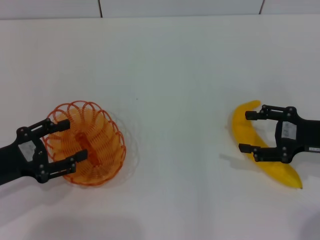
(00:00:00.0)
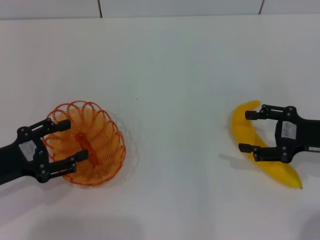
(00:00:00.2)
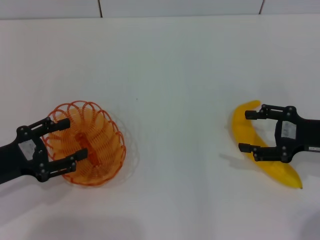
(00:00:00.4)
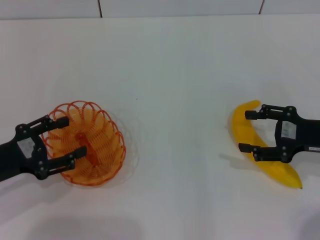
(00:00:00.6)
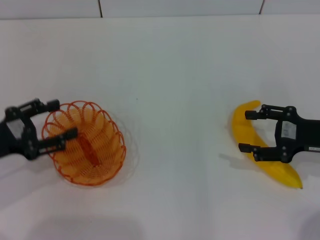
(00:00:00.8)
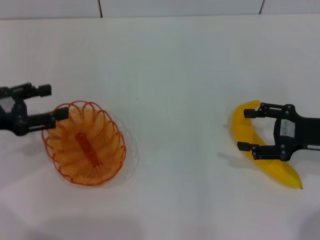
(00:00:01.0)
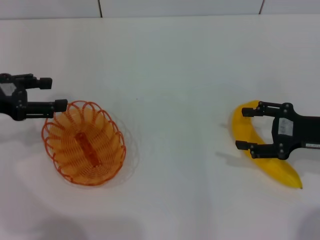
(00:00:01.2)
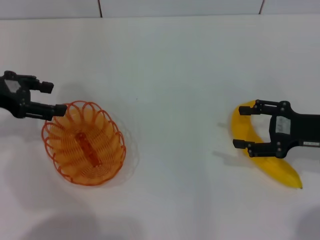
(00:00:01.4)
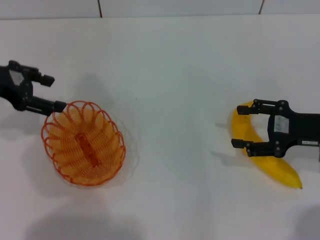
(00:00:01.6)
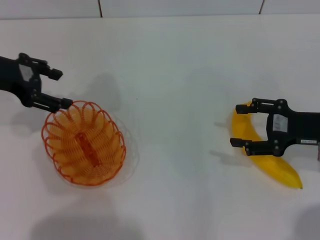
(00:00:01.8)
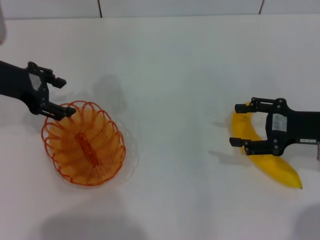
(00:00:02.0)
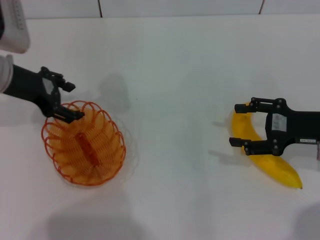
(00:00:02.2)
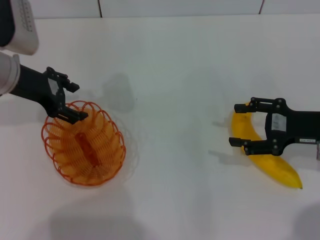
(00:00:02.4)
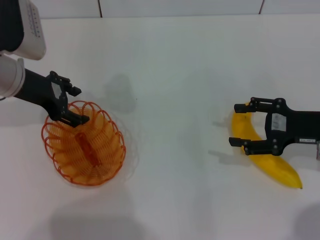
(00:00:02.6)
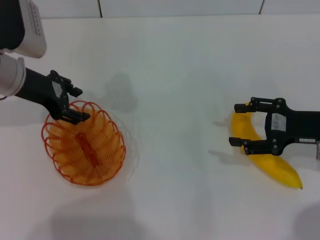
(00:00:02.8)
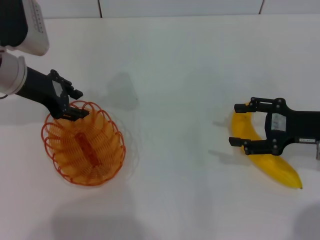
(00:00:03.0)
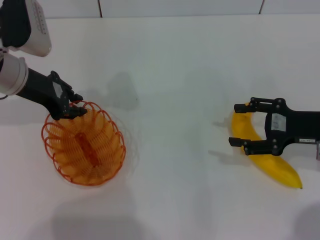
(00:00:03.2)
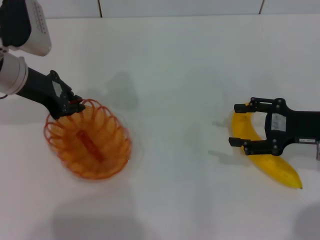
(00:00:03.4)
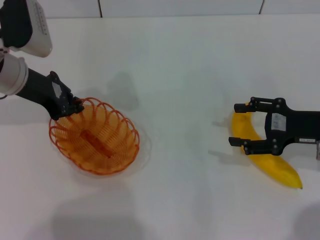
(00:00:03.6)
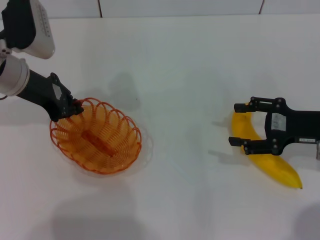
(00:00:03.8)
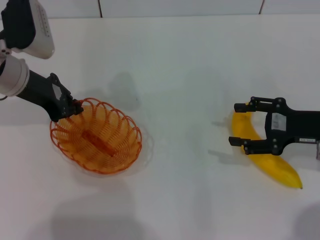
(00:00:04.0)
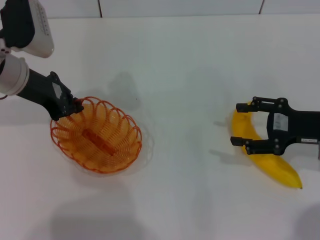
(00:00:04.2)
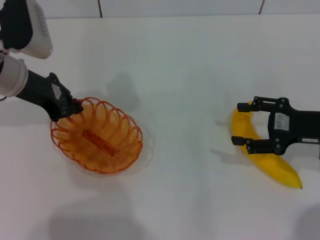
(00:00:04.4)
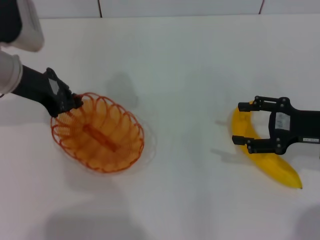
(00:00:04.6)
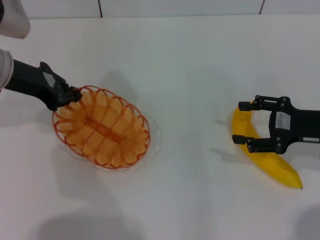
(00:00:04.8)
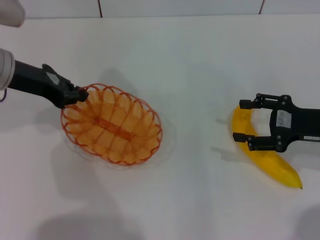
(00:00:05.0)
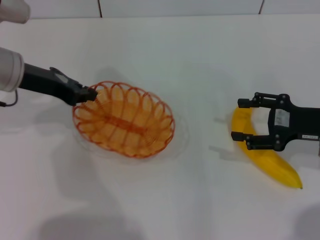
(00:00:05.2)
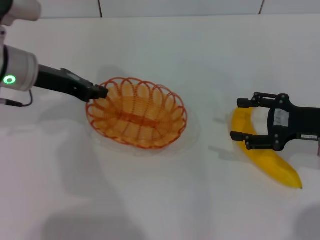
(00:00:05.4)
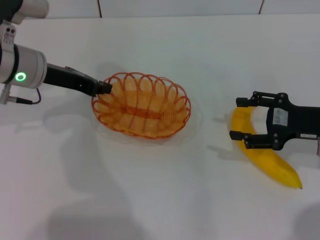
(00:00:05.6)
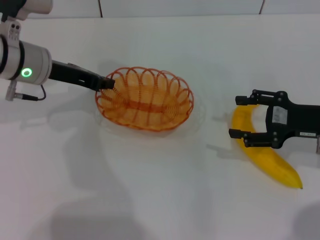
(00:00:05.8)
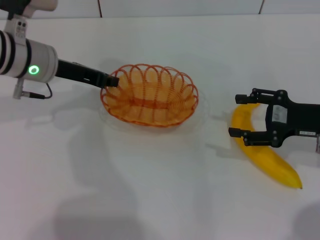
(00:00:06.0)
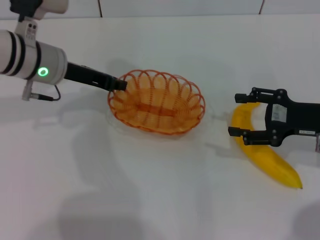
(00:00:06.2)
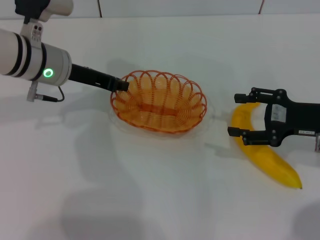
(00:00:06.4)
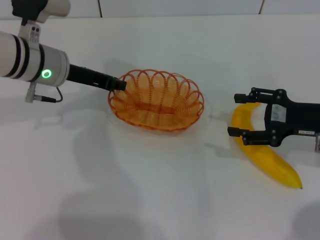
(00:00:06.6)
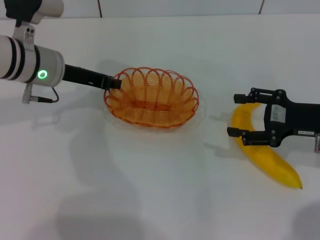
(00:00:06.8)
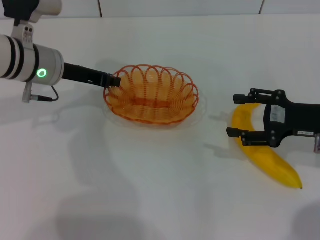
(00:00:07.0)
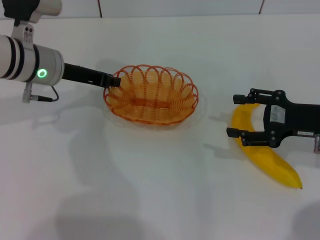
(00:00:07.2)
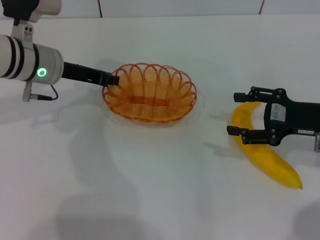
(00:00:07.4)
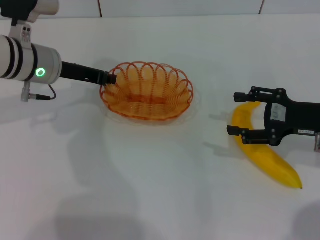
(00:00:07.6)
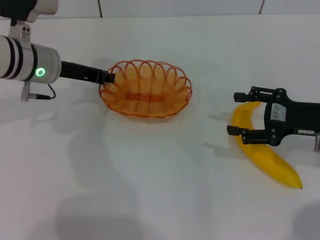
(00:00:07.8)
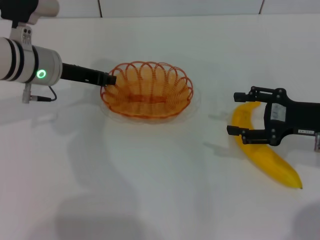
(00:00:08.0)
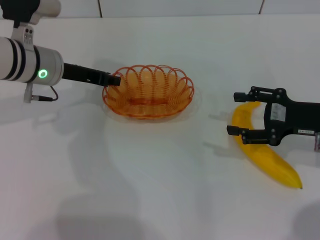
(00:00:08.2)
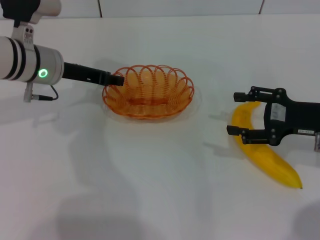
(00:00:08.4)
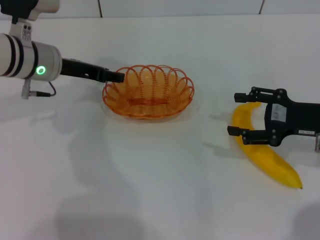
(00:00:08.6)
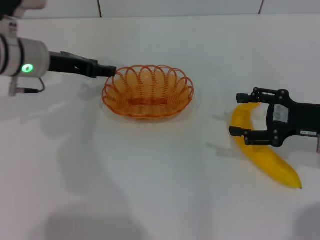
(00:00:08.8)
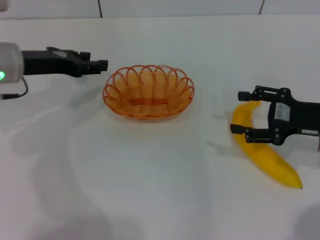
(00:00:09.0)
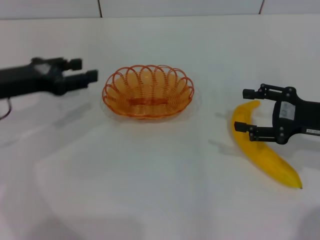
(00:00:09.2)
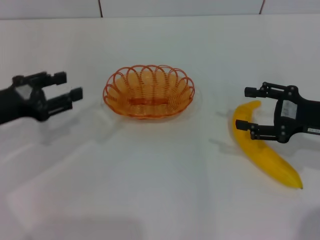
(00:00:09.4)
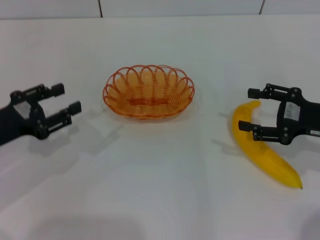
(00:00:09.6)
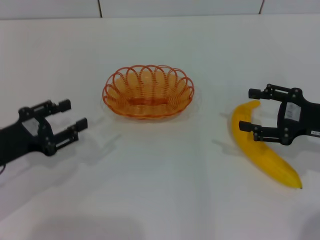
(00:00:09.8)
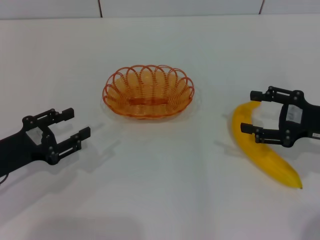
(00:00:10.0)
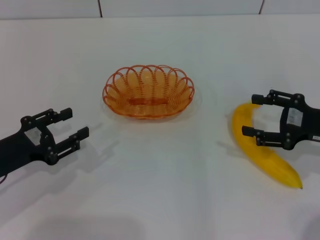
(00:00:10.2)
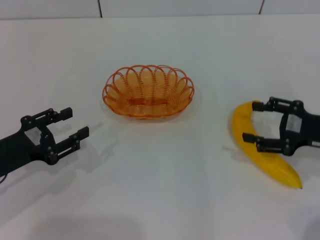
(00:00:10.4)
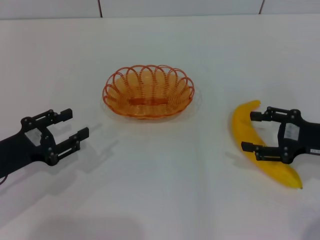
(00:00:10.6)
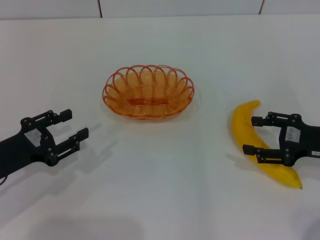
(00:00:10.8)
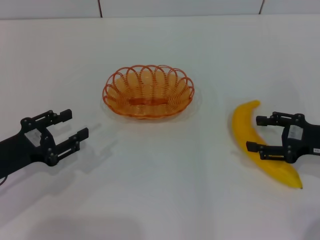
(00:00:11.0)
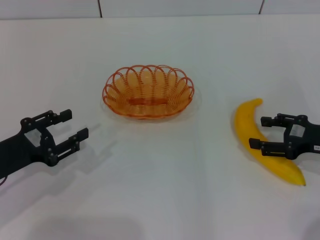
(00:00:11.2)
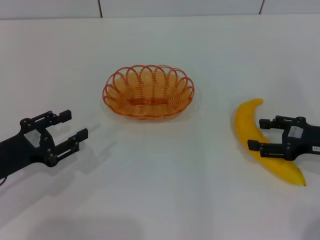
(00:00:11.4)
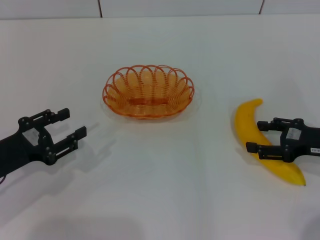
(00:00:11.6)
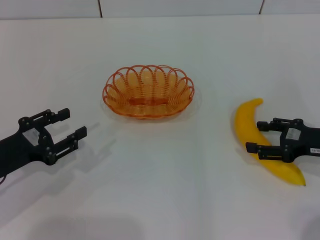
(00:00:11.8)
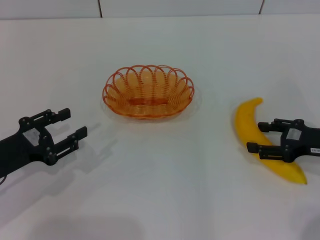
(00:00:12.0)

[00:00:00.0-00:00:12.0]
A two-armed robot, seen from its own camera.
Step, 00:00:00.0 to 00:00:04.8: Pick up the basket with the left gripper.
Step, 00:00:05.0 to 00:00:08.8: Place the basket in the center of view with the left gripper.
00:00:00.0 to 00:00:01.6: The left gripper is displaced forward and upward by some 20 cm.
00:00:01.6 to 00:00:03.0: The left gripper heads to the right, covering approximately 5 cm.
00:00:03.0 to 00:00:04.4: The left gripper closes up.
00:00:06.0 to 00:00:07.6: The grippers make only small movements.
00:00:07.6 to 00:00:09.0: The left gripper ends up about 5 cm from where it was, and opens its fingers.
00:00:09.0 to 00:00:10.4: The left gripper goes roughly 15 cm backward, downward and to the left.

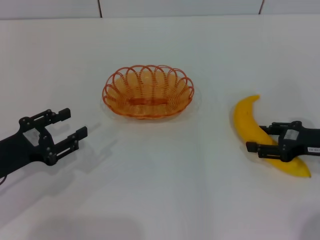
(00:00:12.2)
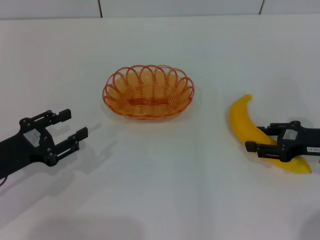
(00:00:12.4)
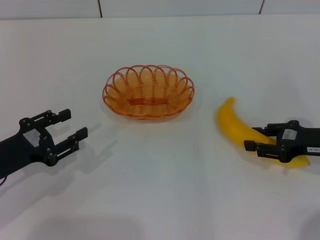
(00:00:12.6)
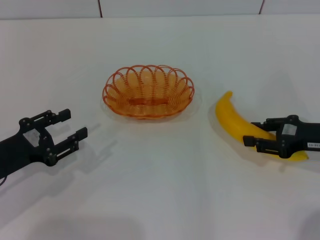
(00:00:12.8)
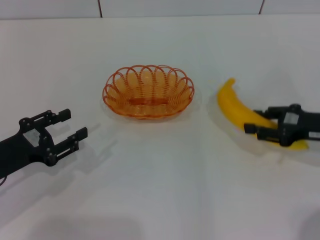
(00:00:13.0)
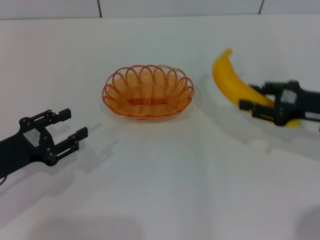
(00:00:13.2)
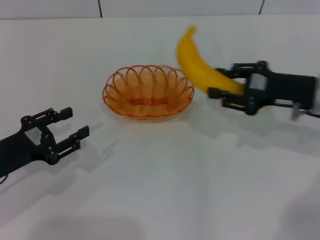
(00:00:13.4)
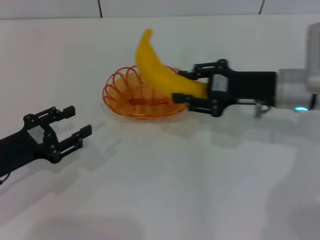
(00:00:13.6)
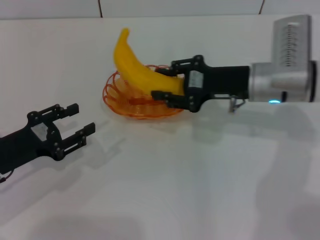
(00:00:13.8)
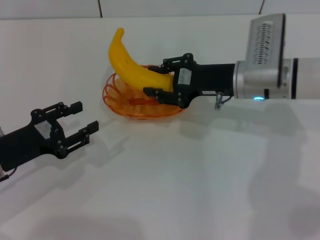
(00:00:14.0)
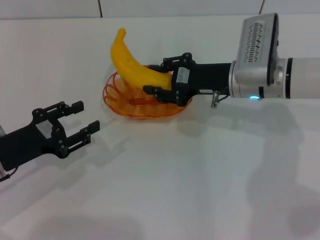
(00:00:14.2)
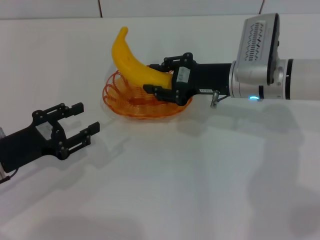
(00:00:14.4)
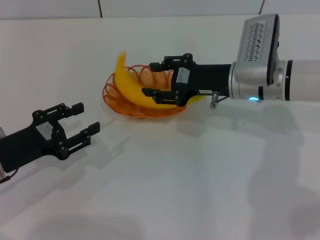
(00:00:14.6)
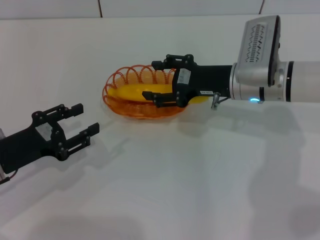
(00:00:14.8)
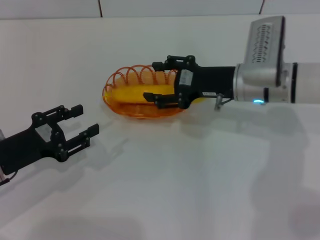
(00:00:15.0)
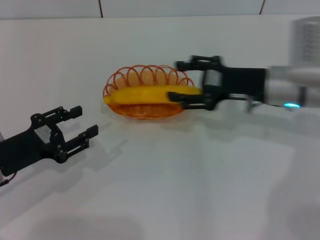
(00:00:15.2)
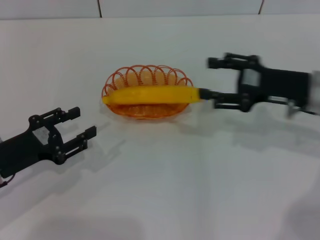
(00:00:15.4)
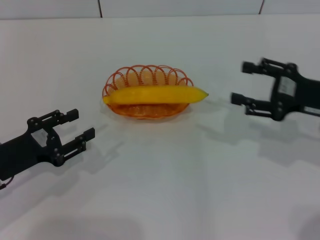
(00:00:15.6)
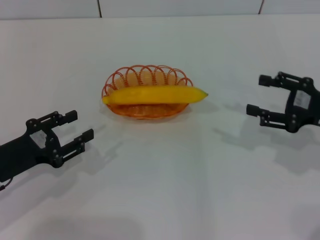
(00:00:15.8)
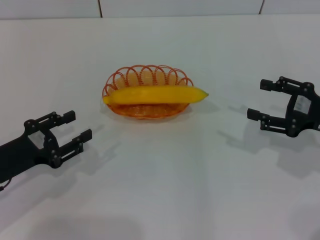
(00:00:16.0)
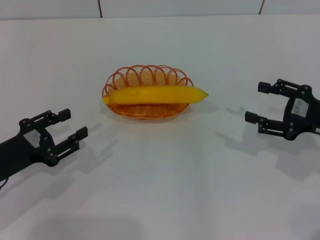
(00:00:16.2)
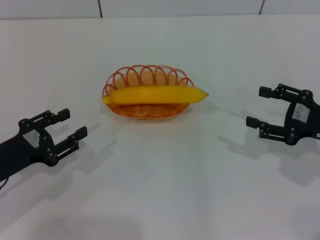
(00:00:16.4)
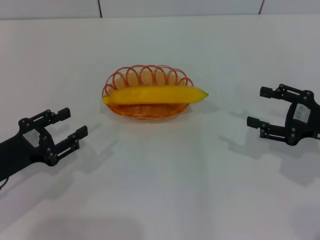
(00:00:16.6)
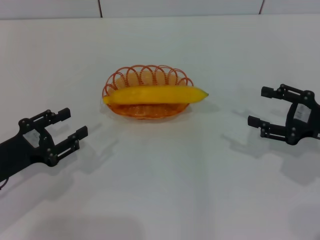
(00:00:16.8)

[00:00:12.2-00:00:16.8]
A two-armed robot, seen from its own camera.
Step, 00:00:13.2 to 00:00:15.4: Place the banana into the basket with the right gripper.
00:00:12.2 to 00:00:13.8: The right gripper moves to the left and forward, some 15 cm, and closes.
00:00:13.8 to 00:00:15.2: The right gripper opens.
00:00:15.2 to 00:00:16.8: The right gripper moves to the right and backward, some 15 cm.
